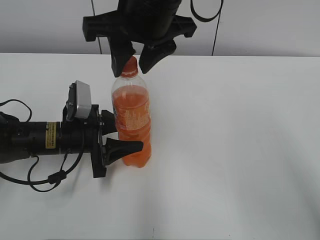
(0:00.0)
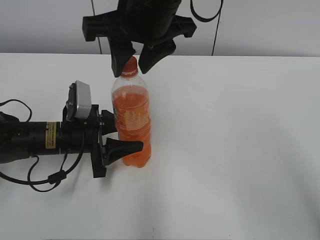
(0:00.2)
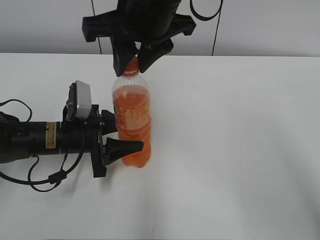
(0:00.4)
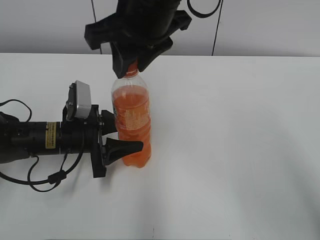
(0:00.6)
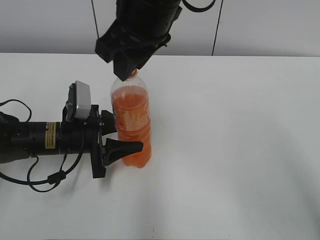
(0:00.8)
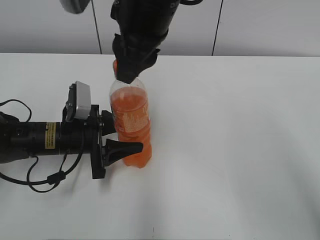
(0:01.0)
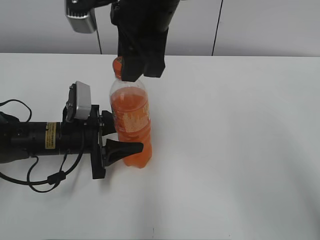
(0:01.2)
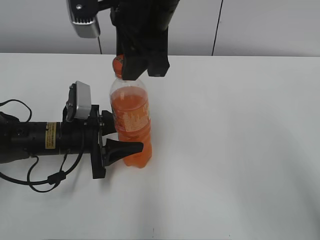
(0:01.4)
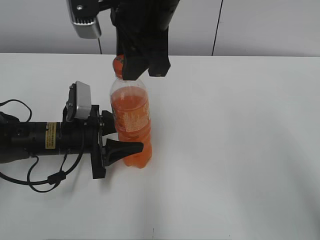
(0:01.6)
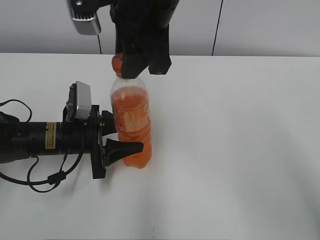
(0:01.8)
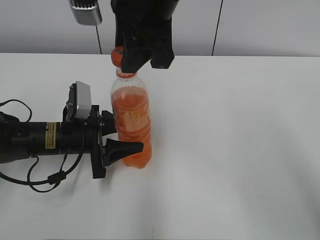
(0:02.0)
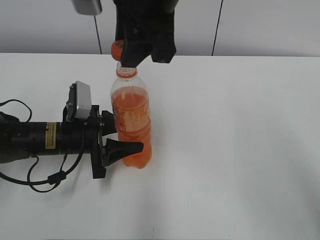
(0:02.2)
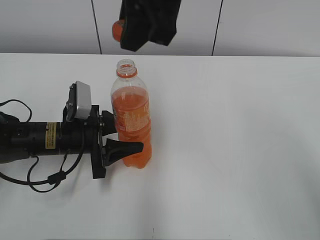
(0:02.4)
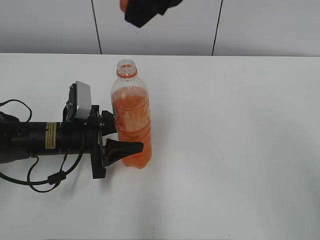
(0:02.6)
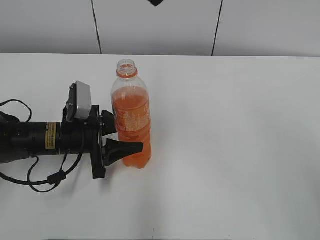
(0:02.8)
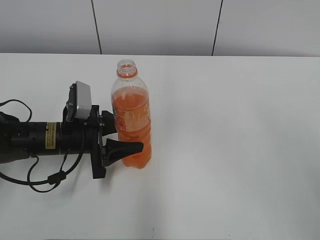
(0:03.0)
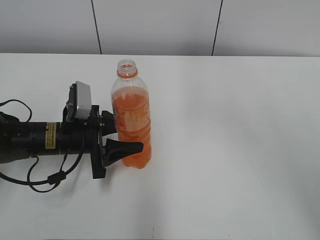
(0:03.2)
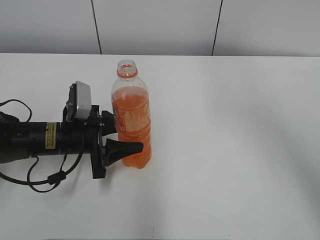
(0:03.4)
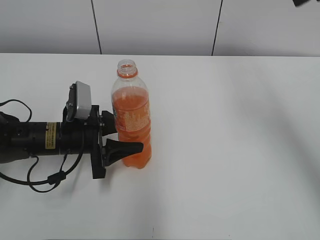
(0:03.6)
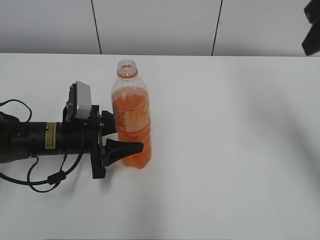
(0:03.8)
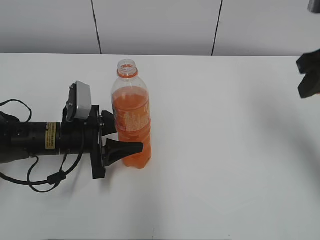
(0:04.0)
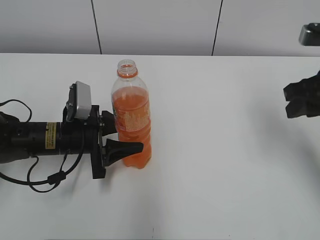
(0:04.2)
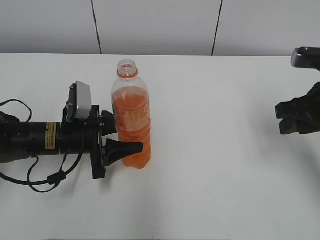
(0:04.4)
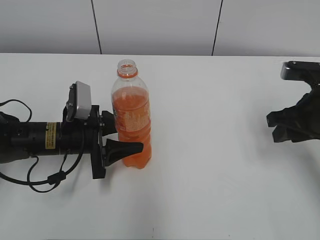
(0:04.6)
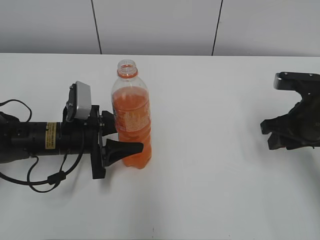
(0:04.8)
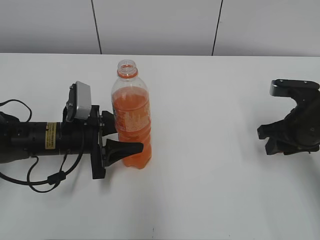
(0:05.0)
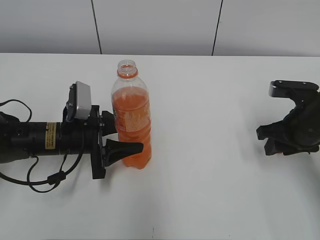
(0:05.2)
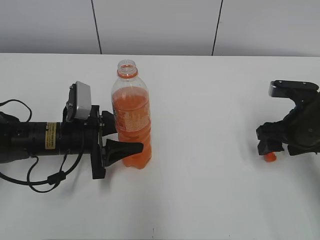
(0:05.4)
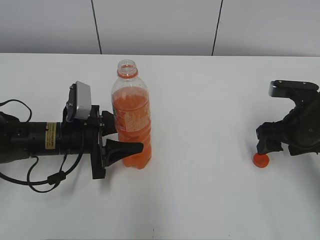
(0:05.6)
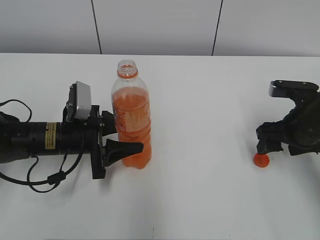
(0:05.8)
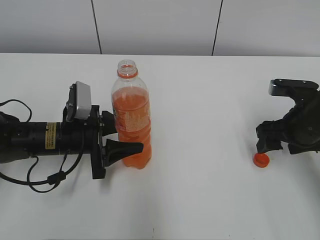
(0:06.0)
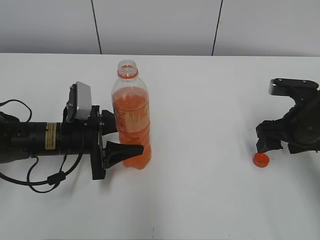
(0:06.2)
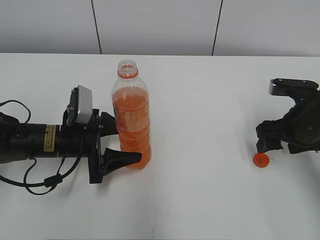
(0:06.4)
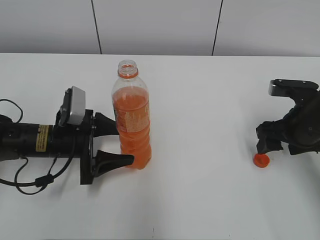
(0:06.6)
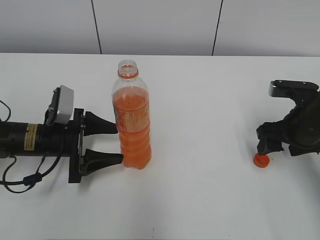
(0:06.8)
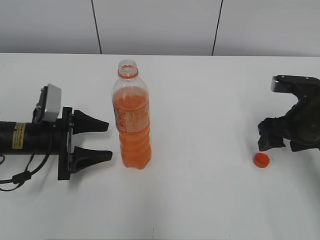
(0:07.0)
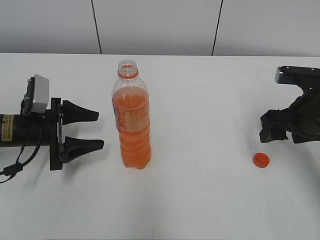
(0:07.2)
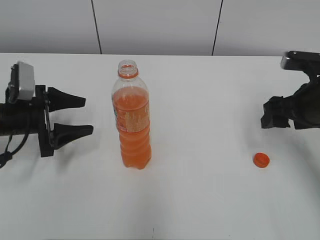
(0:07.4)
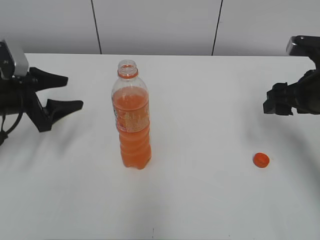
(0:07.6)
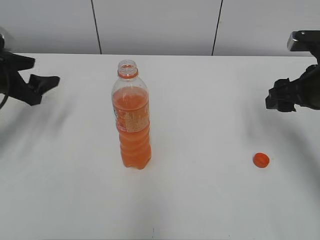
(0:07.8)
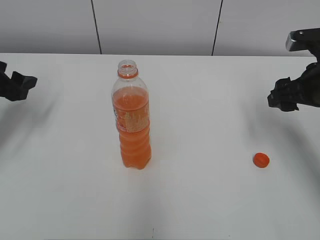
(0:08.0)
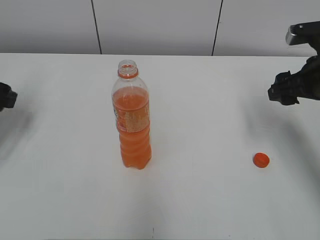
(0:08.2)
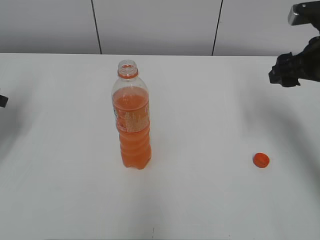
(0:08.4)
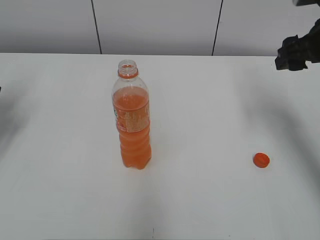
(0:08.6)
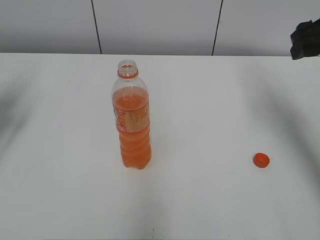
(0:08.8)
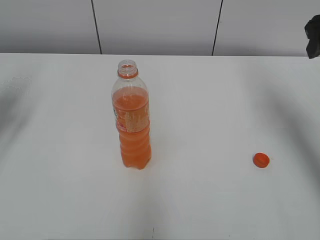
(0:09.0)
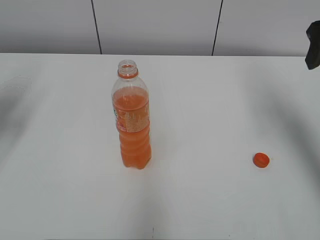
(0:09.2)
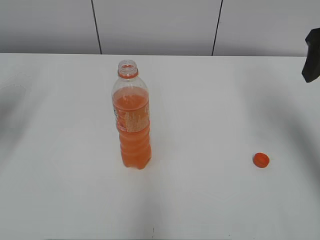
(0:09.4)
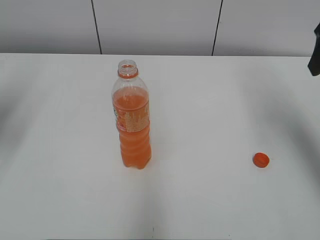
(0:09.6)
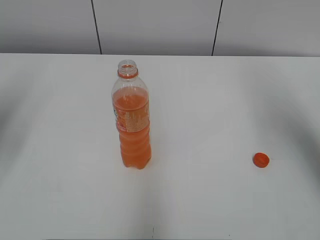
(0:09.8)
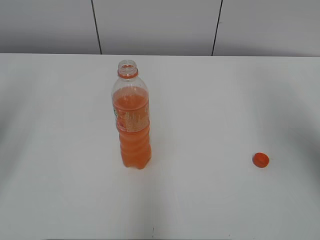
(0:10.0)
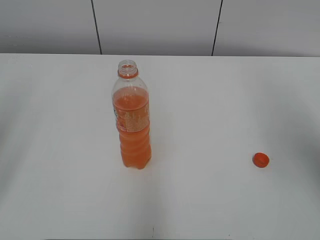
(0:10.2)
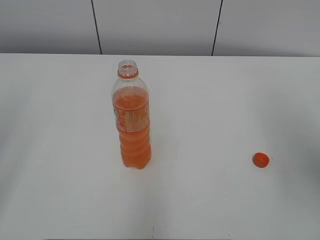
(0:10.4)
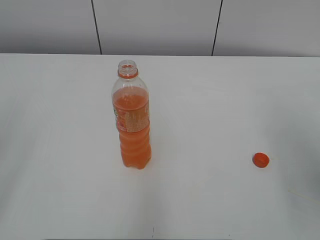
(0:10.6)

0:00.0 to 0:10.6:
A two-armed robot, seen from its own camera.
Step, 0:02.2 to 0:05.6: Place the bottle cap on the right.
0:01.6 to 0:03.0: The right gripper shifts about 15 cm upward and to the right.
0:03.0 to 0:04.6: The right gripper is displaced downward and to the right by about 30 cm.
0:04.6 to 0:06.0: The right gripper opens.
0:06.0 to 0:07.6: The right gripper heads upward, covering approximately 5 cm. Meanwhile the left gripper heads to the left and upward, covering approximately 15 cm, and opens up.
0:07.6 to 0:09.0: The right gripper moves upward, roughly 10 cm, while the left gripper shifts some 15 cm upward and to the left, and closes.
0:09.0 to 0:10.6: Both grippers travel together backward, approximately 25 cm. The left gripper opens.
